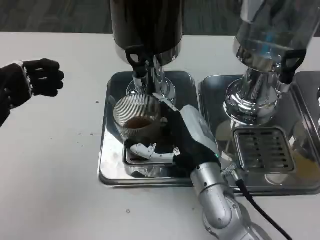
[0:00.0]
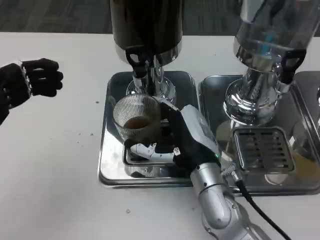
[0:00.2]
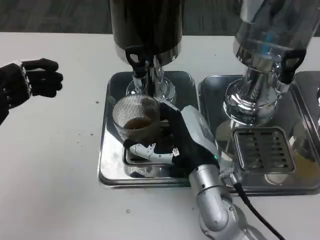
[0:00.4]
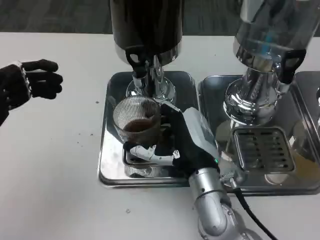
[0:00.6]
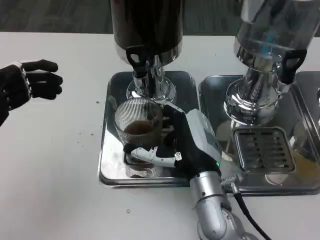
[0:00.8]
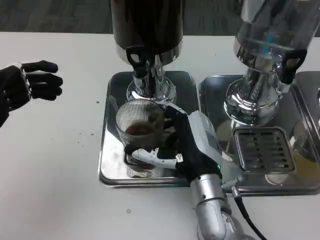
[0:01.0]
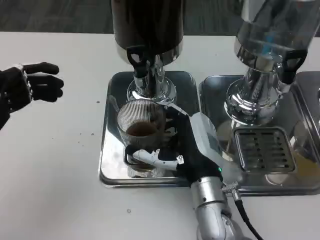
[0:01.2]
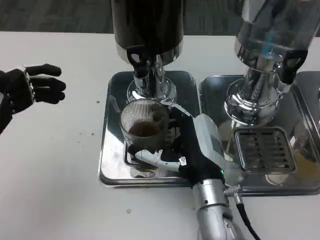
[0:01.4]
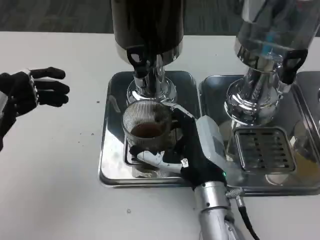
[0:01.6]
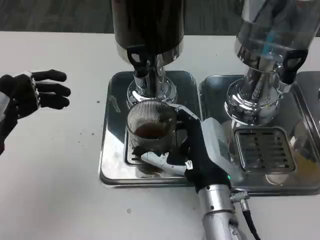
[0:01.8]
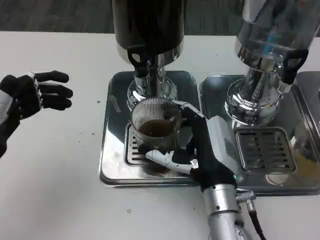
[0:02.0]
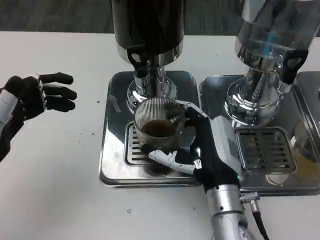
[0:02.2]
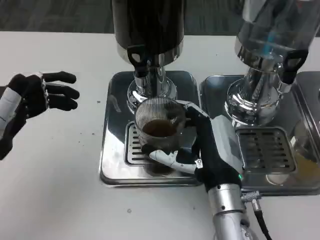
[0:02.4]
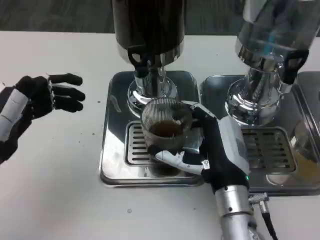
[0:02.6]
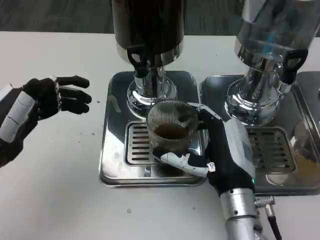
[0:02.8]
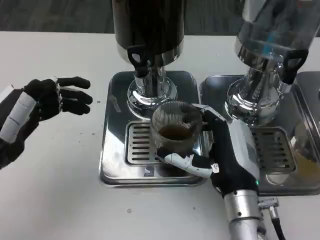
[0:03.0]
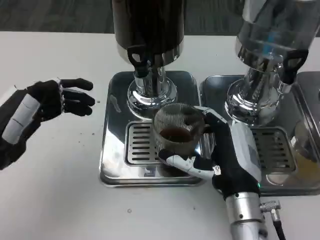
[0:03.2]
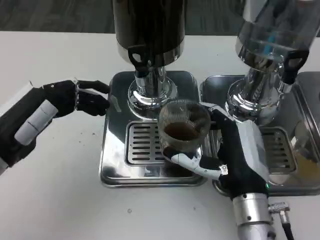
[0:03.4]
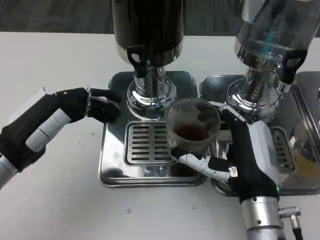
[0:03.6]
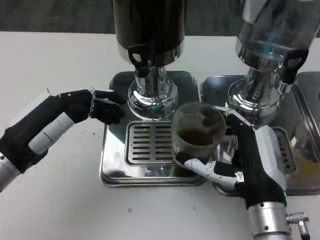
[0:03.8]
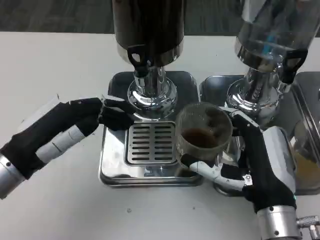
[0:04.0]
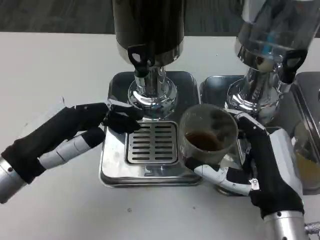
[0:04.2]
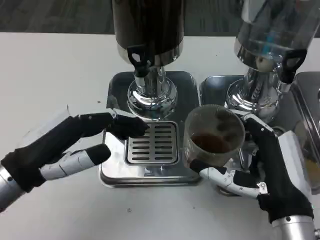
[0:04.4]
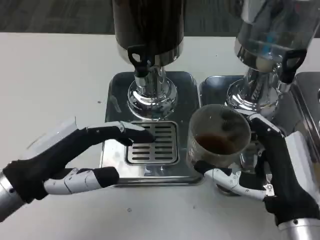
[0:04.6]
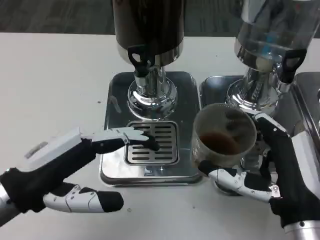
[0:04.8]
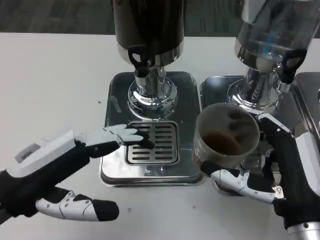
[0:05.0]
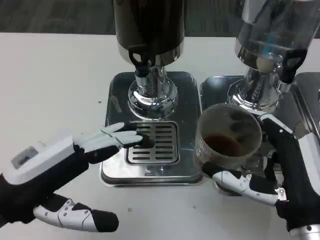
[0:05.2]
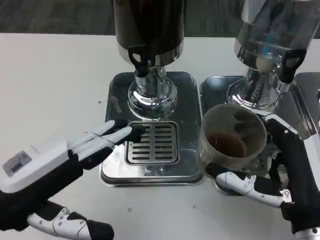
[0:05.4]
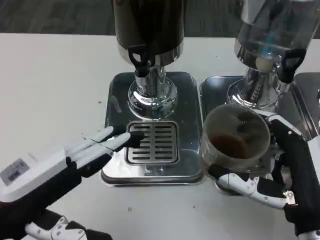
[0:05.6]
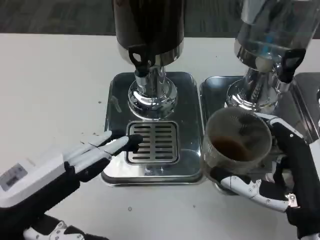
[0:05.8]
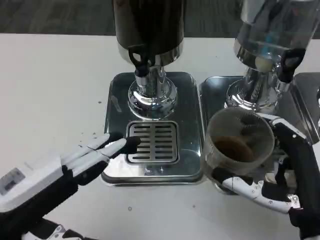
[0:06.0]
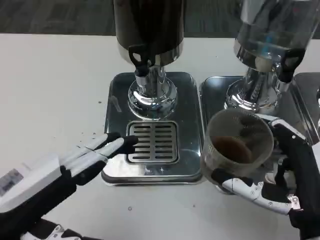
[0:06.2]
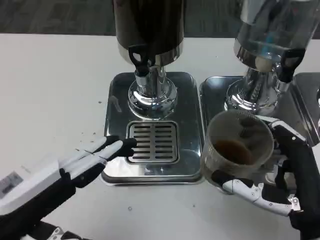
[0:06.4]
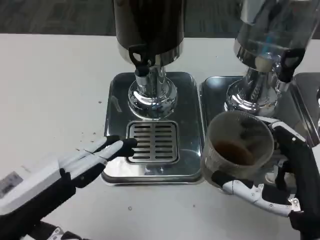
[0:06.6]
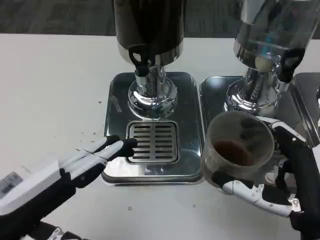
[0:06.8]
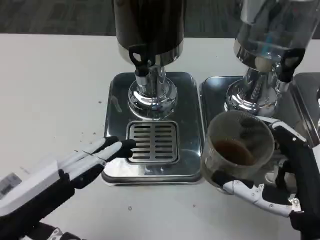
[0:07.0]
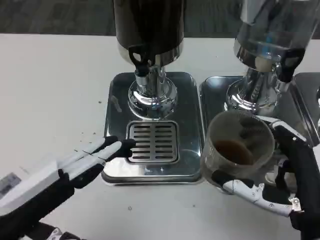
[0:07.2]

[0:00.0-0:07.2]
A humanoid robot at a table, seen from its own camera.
Task of the whole recording: Grasp the cup under the faucet to collect the drink, then remove the cup.
0:00.0 to 0:01.4: The hands make only small movements.
0:02.8 to 0:04.4: The left hand changes place by some 5 cm; the right hand heads backward, covering some 5 cm.
0:04.4 to 0:05.8: The left hand moves backward, roughly 5 cm.
0:05.8 to 0:07.2: Both hands stay put.
